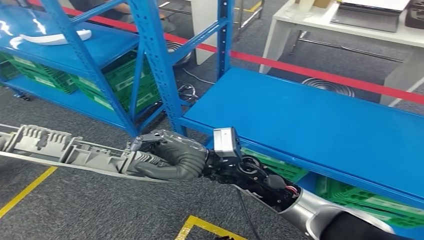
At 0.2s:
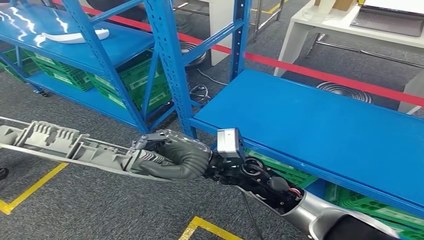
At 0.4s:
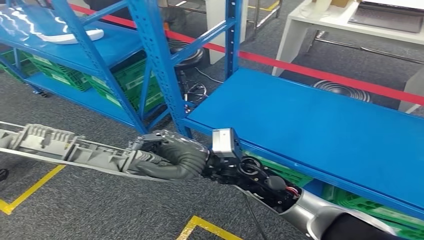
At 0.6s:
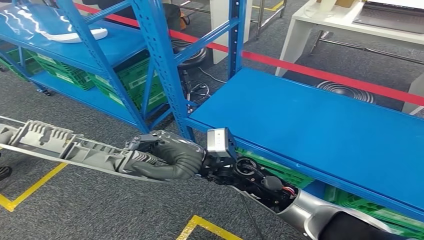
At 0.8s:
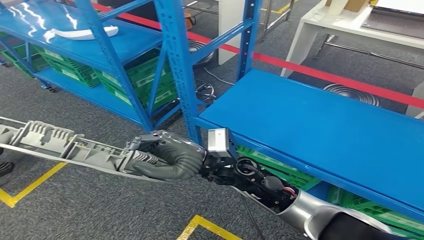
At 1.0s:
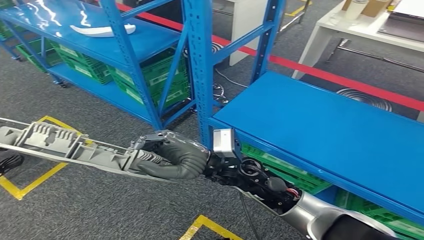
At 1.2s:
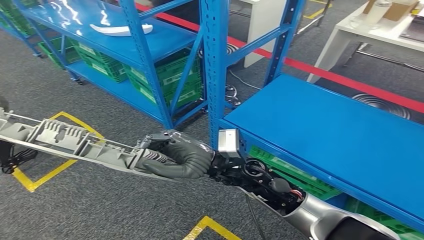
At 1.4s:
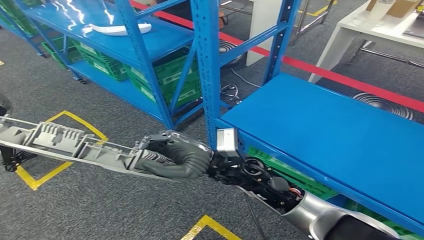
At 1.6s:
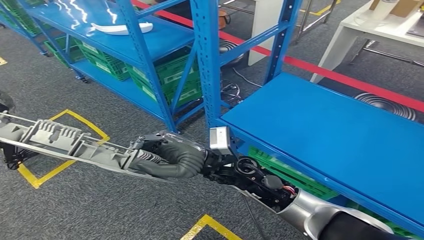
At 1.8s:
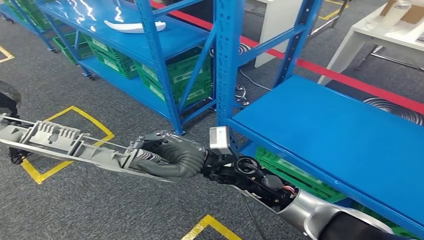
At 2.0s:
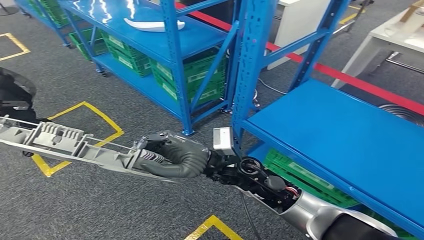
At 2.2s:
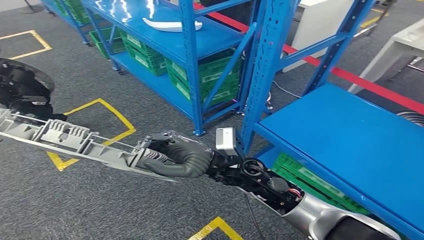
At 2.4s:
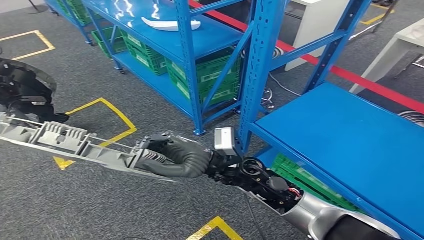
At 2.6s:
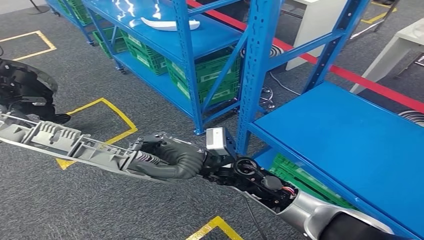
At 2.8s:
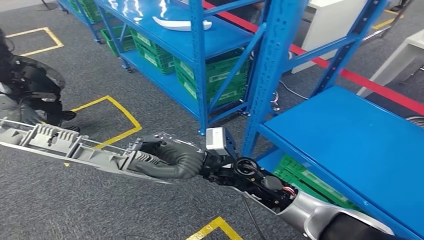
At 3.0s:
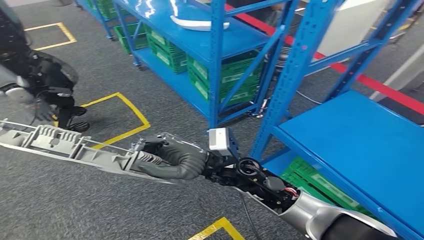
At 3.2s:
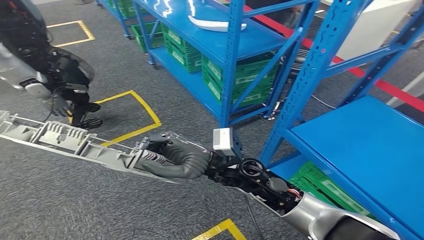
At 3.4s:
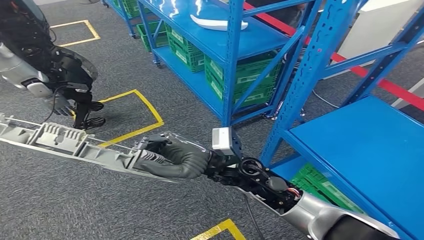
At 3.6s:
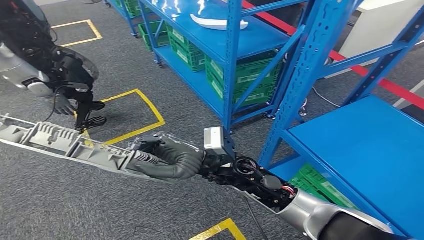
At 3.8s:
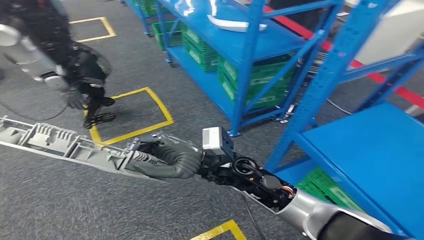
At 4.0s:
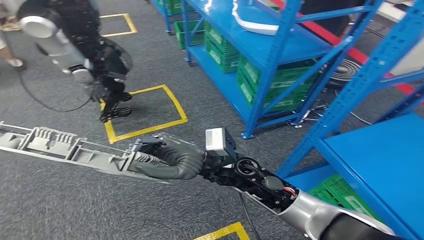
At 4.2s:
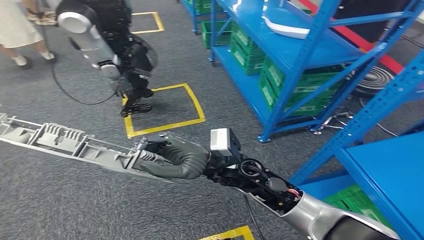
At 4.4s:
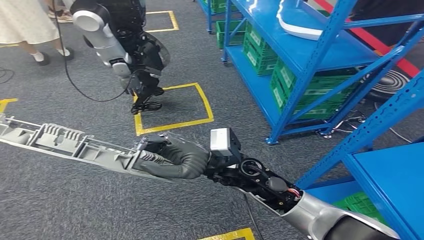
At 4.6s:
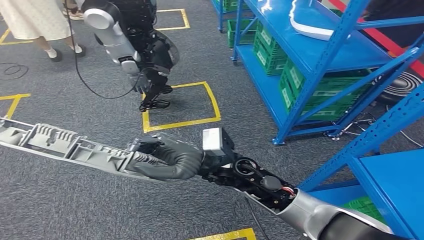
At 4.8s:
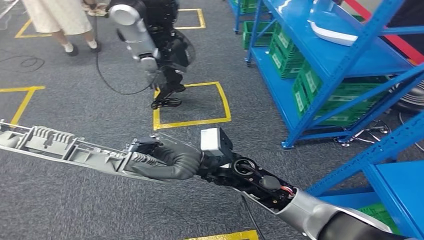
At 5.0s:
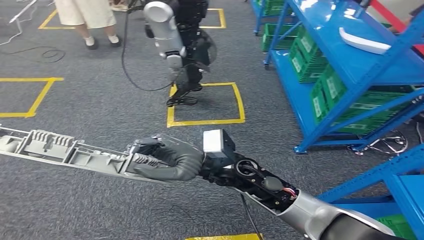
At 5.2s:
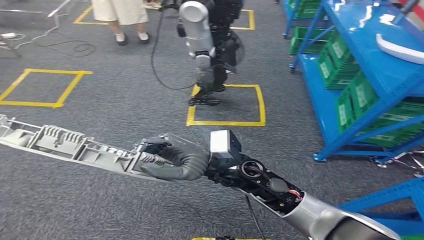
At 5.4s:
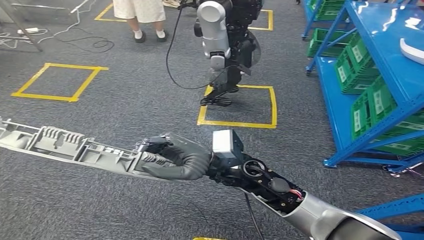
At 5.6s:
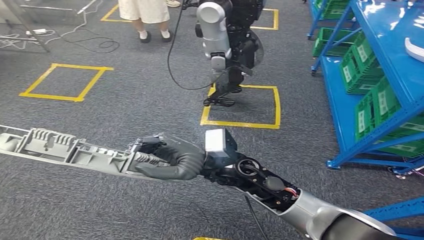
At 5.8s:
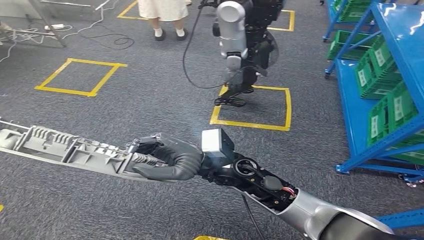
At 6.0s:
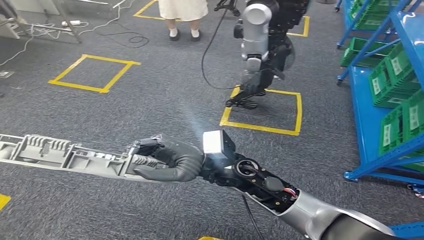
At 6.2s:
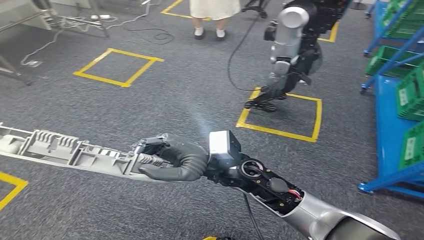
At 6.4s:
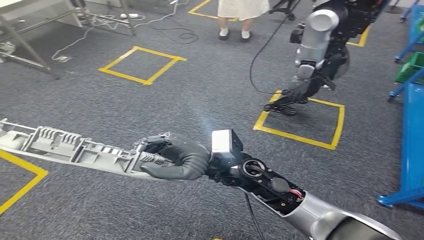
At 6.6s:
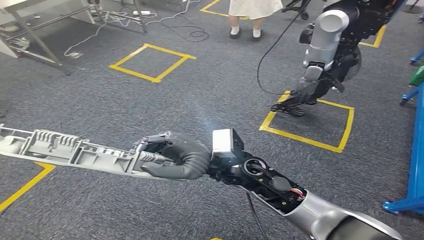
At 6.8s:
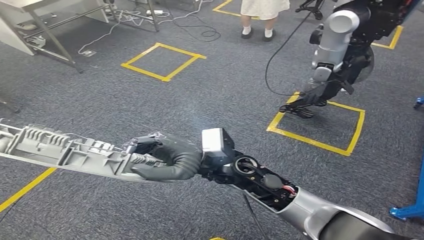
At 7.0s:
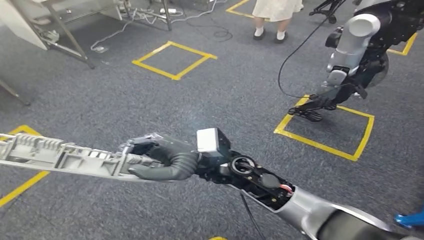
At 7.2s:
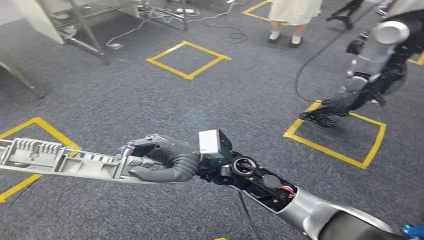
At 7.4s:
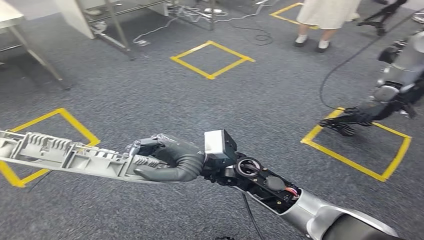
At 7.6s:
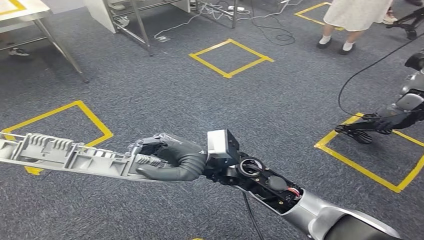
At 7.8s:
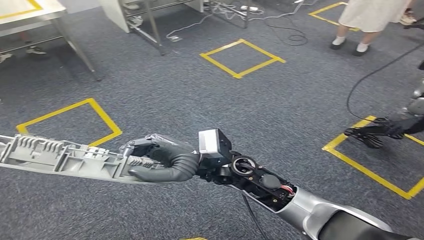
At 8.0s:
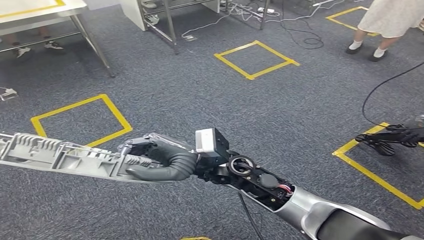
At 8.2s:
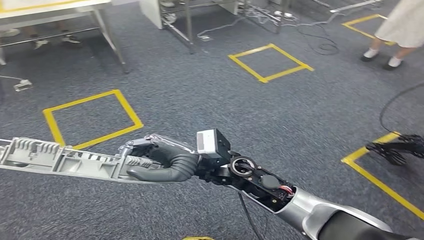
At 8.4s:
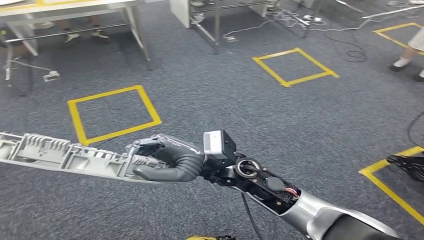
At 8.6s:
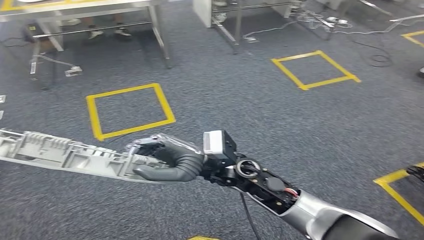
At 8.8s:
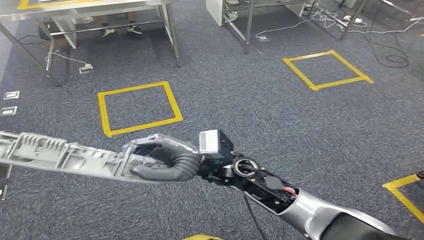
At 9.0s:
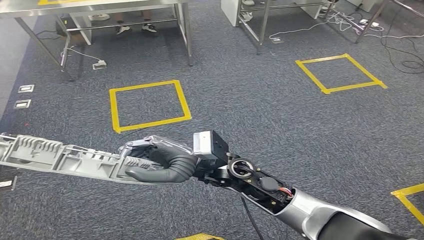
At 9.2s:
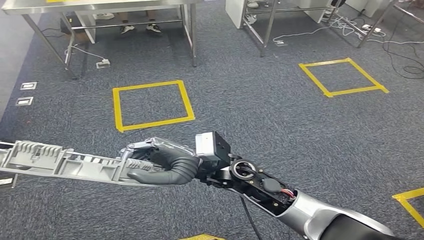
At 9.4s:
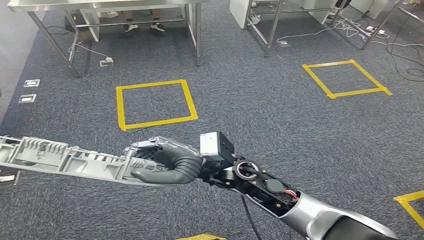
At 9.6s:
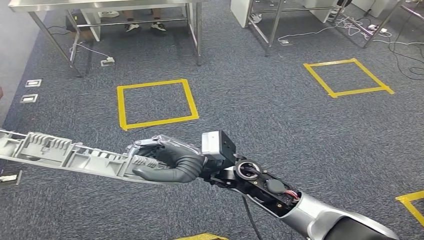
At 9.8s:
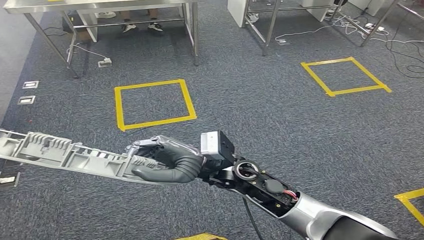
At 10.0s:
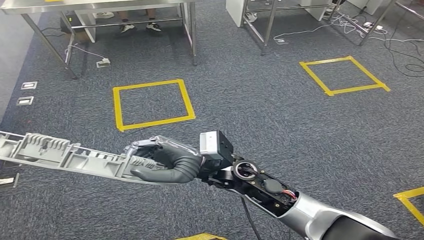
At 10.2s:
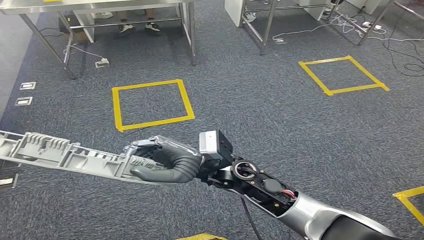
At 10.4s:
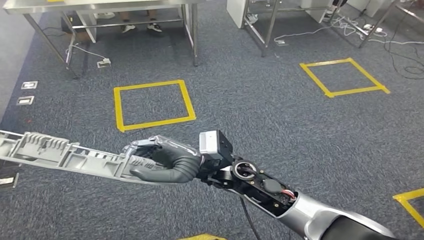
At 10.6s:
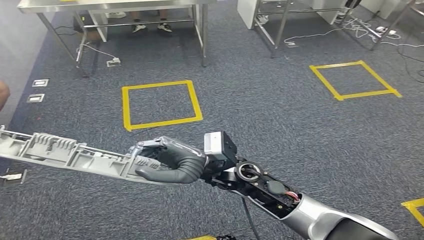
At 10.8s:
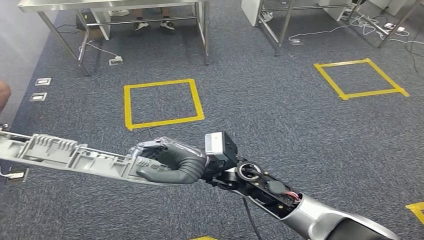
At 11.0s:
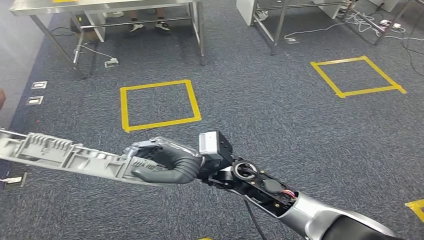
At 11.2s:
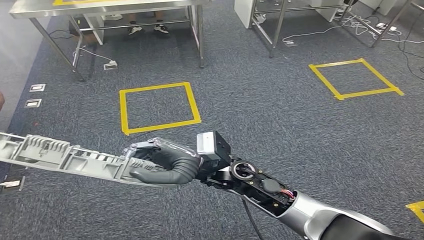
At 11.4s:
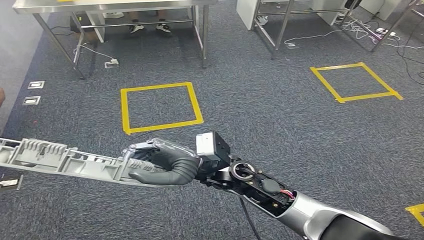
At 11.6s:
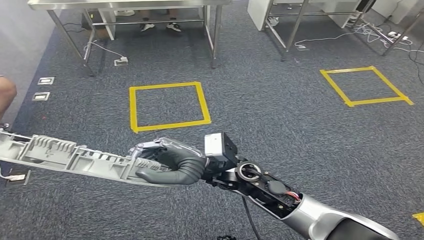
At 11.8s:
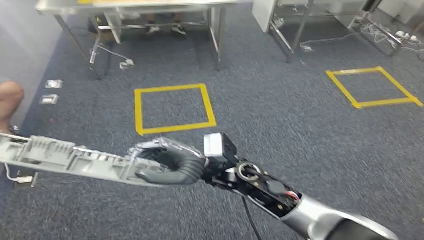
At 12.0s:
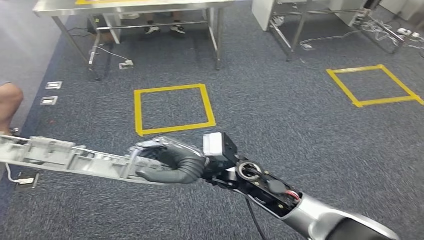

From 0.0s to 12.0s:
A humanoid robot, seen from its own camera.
From 9.0s to 10.4s: Both hands stay put.

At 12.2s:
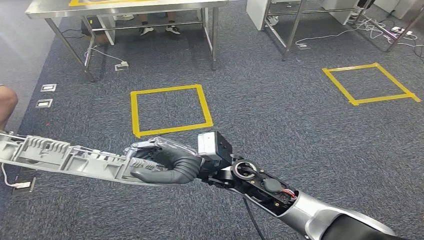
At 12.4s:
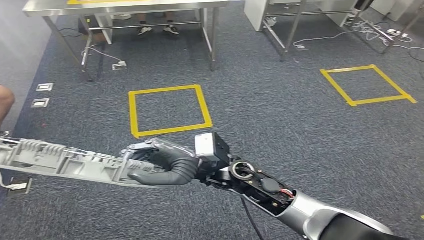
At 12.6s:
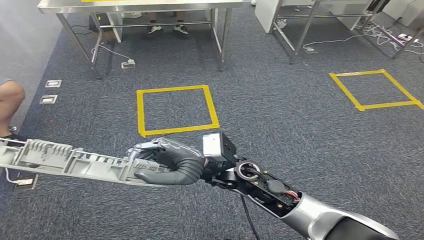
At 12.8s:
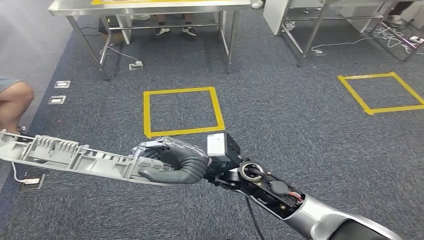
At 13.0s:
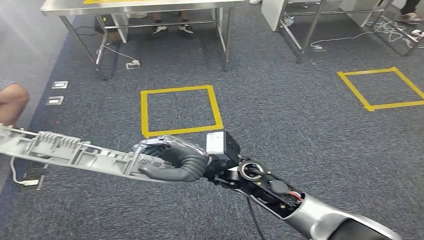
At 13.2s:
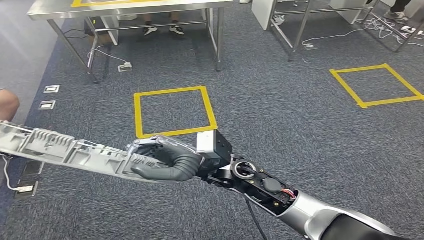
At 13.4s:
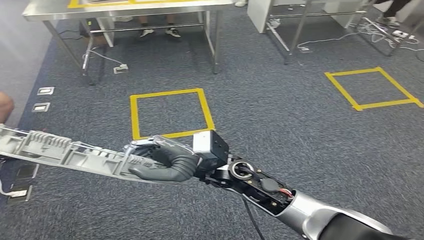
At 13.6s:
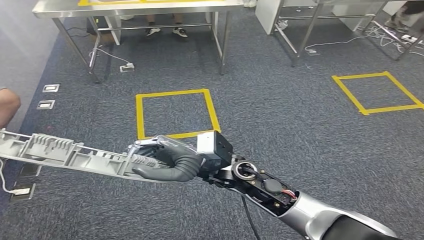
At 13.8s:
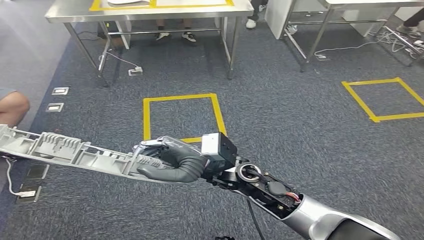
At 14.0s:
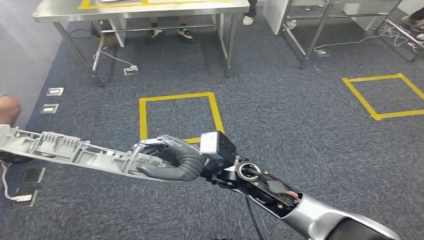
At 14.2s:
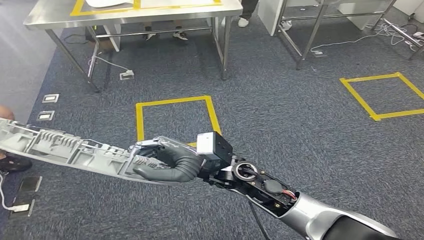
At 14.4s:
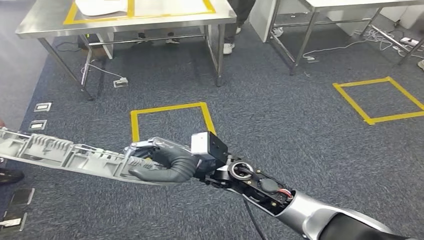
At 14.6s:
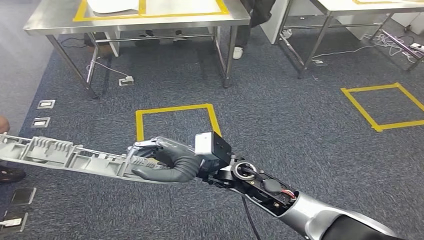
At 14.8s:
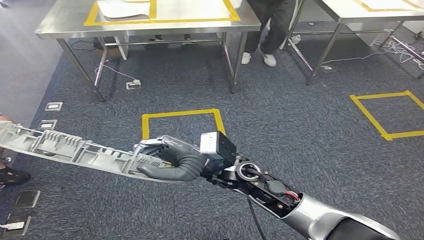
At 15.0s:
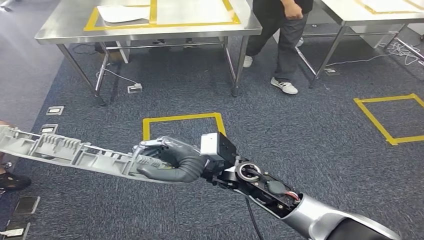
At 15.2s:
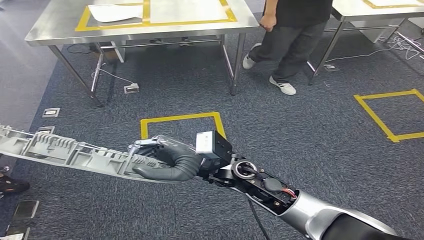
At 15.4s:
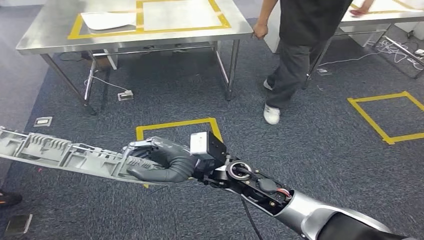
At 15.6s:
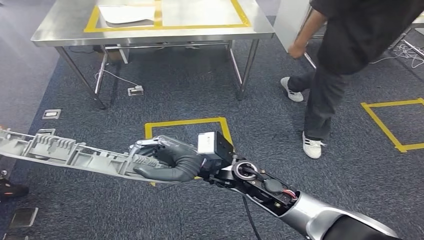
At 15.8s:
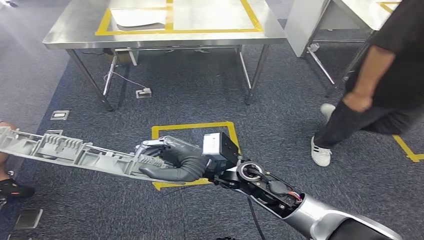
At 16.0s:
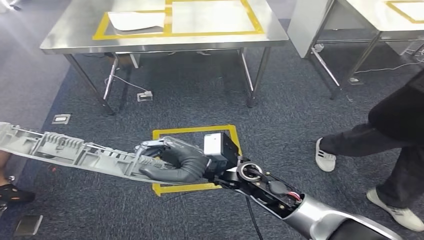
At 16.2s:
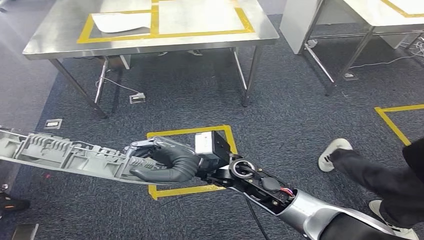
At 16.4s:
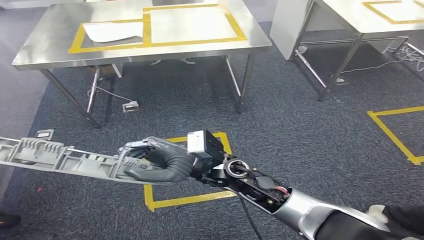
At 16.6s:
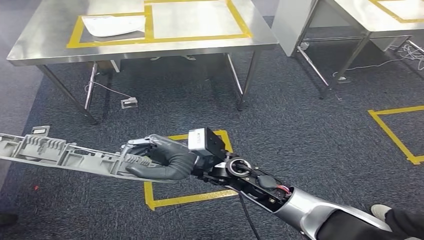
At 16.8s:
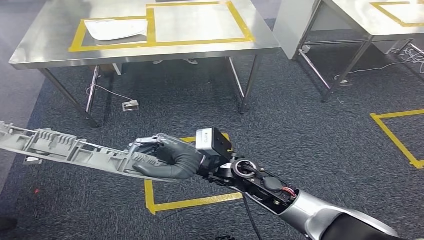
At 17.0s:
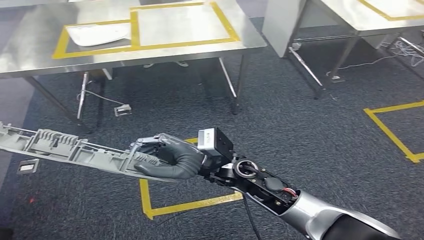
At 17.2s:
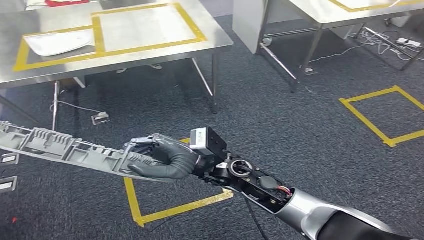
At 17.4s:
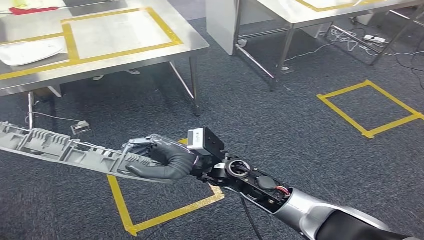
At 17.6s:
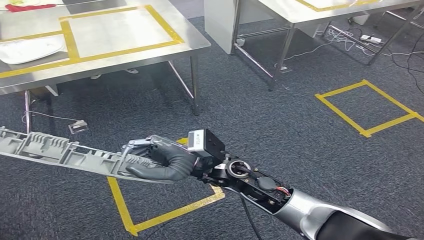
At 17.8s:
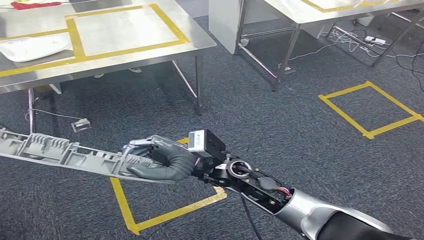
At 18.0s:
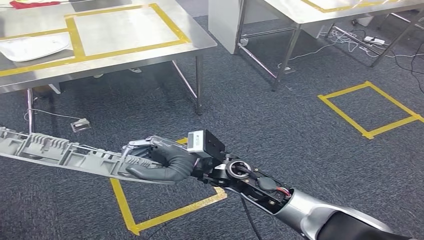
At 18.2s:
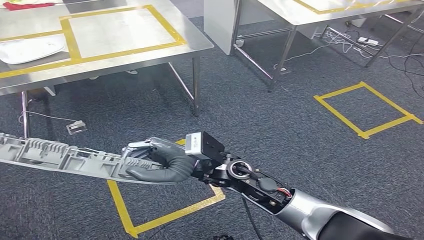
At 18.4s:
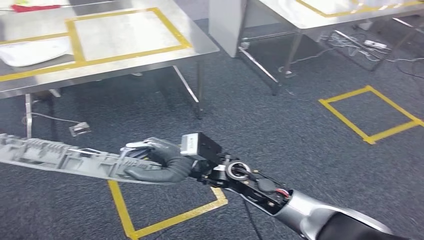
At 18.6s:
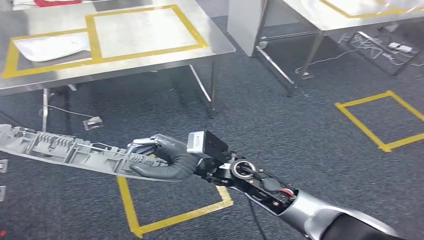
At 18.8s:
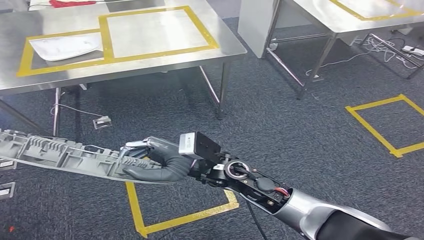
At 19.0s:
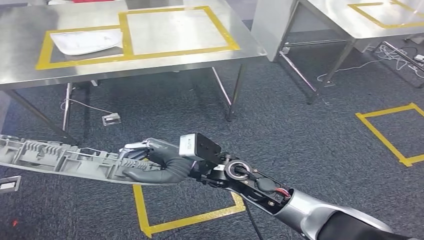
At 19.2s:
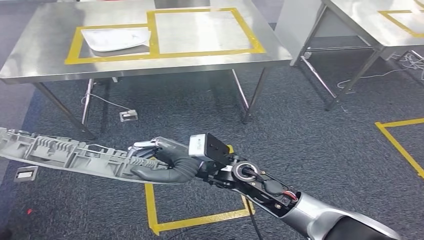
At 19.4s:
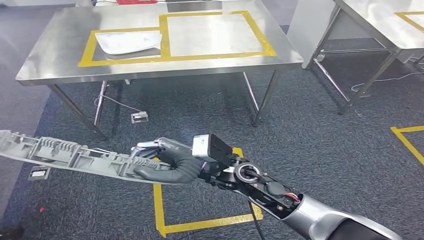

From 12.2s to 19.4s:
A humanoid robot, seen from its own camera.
From 12.2s to 13.6s: Both hands stay put.
